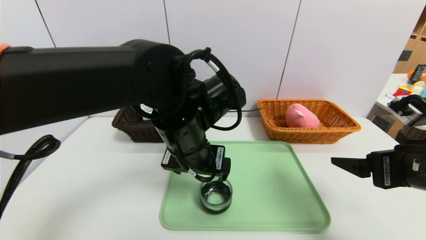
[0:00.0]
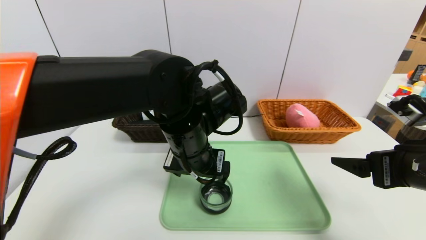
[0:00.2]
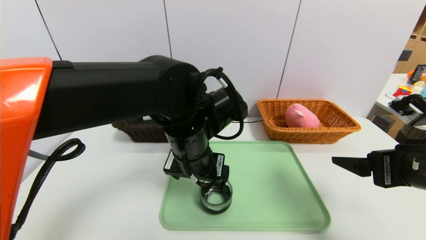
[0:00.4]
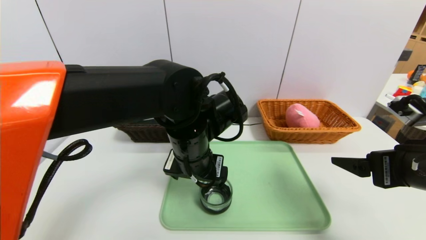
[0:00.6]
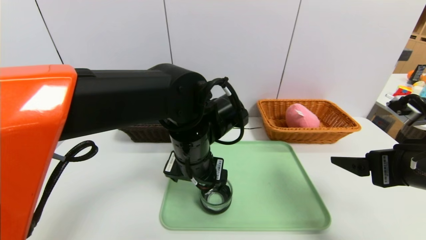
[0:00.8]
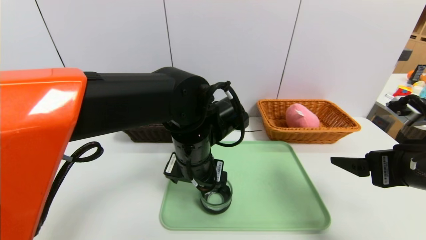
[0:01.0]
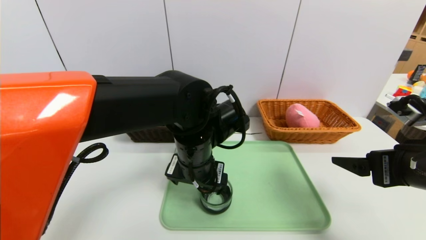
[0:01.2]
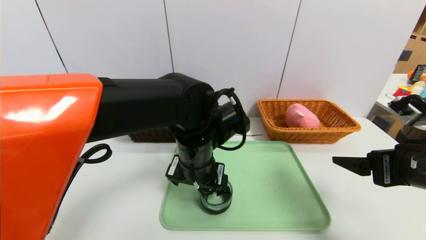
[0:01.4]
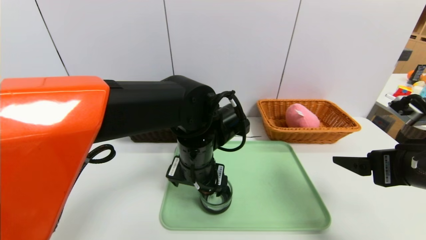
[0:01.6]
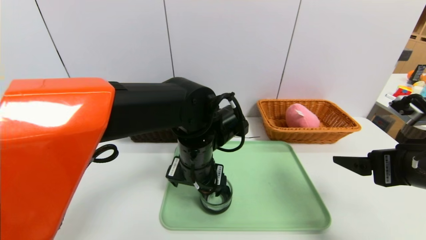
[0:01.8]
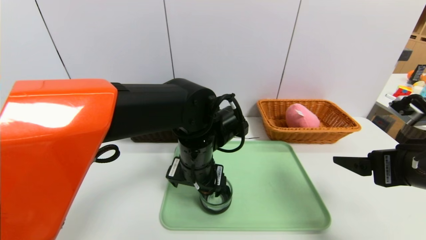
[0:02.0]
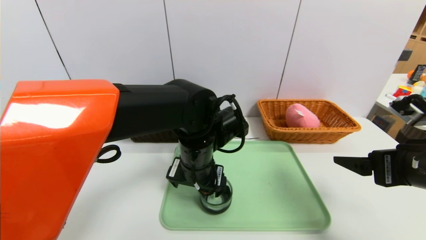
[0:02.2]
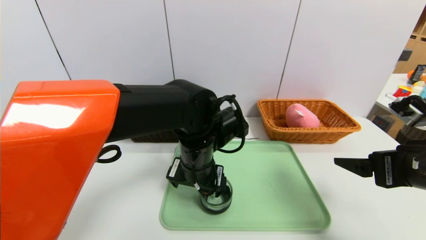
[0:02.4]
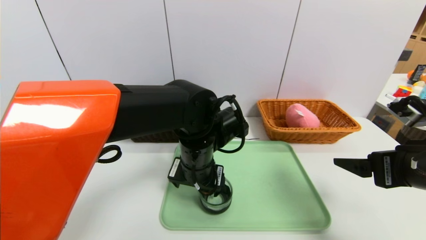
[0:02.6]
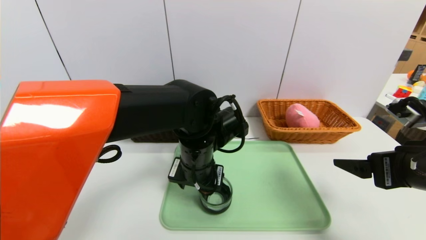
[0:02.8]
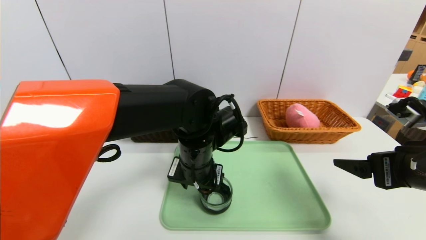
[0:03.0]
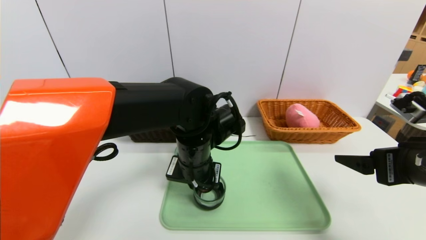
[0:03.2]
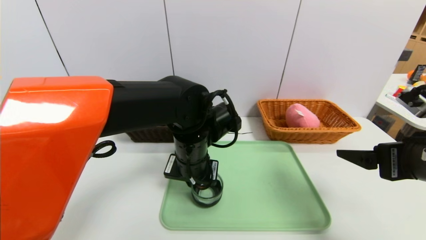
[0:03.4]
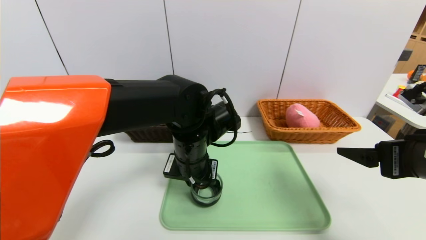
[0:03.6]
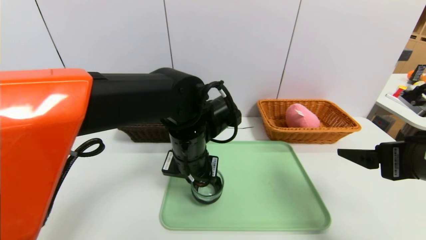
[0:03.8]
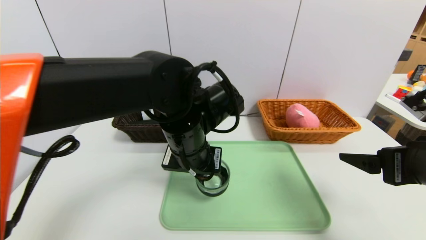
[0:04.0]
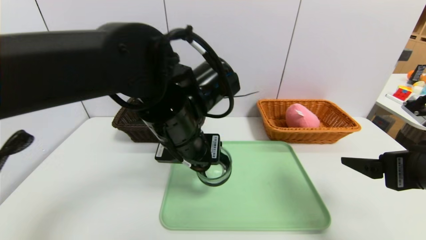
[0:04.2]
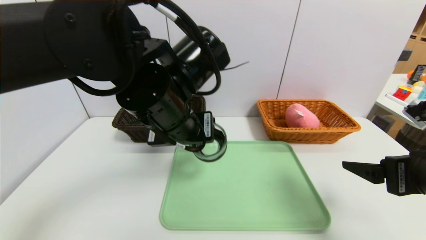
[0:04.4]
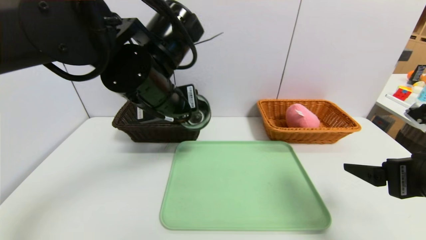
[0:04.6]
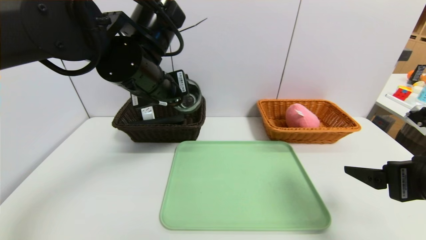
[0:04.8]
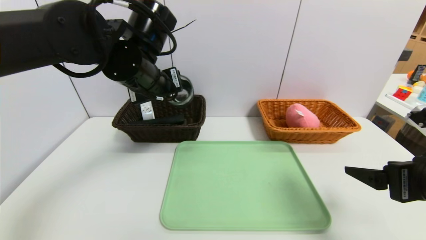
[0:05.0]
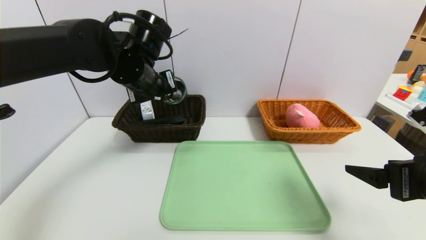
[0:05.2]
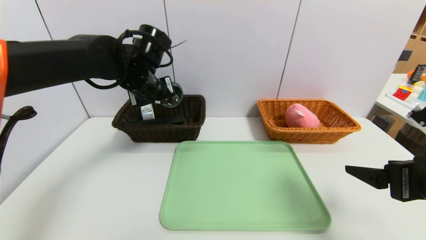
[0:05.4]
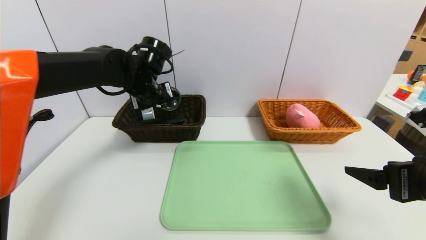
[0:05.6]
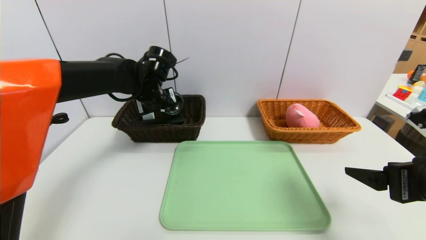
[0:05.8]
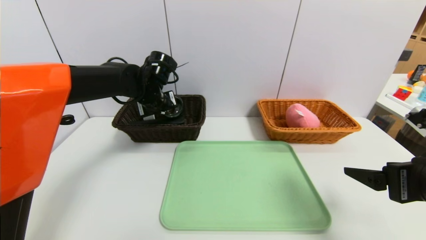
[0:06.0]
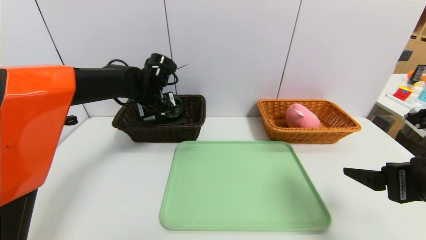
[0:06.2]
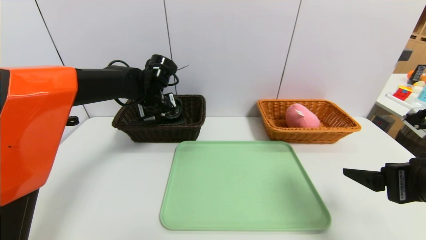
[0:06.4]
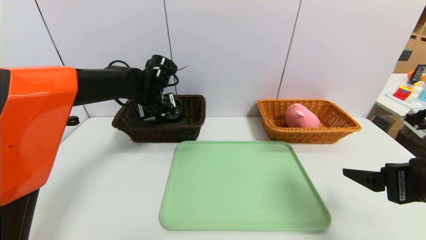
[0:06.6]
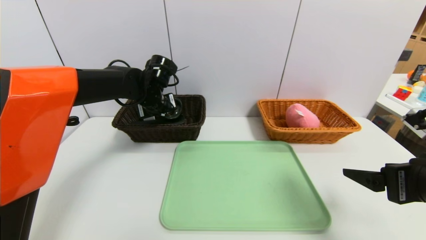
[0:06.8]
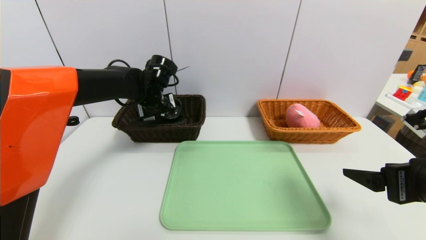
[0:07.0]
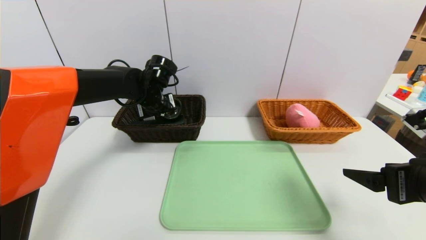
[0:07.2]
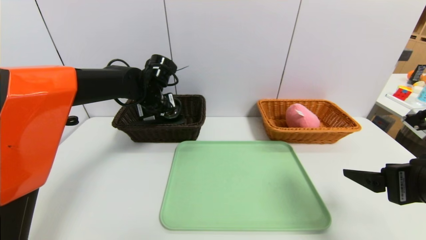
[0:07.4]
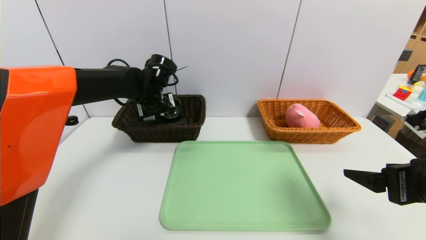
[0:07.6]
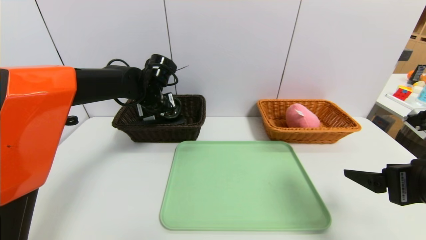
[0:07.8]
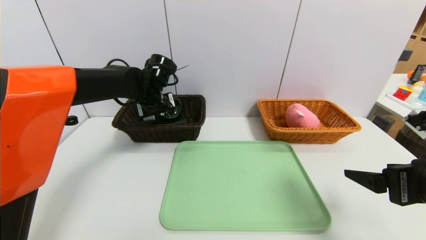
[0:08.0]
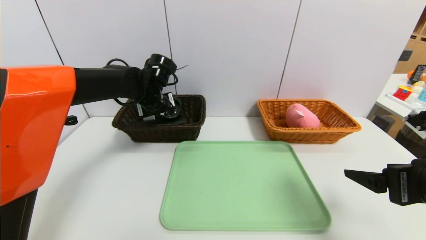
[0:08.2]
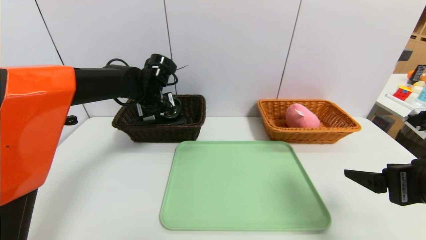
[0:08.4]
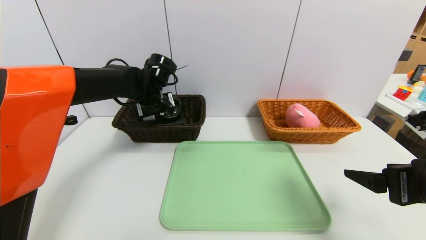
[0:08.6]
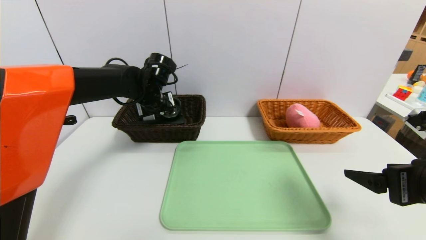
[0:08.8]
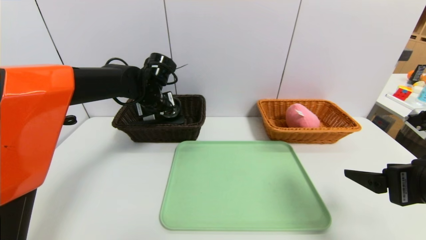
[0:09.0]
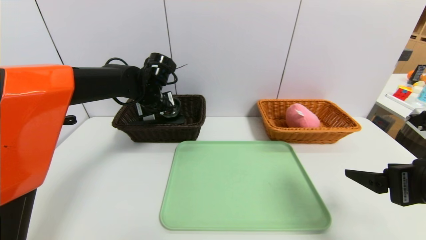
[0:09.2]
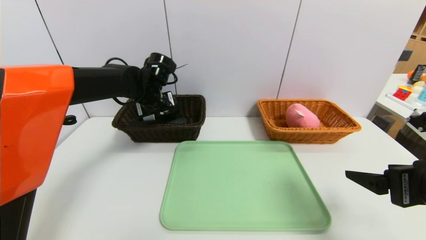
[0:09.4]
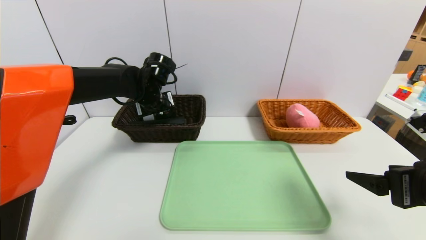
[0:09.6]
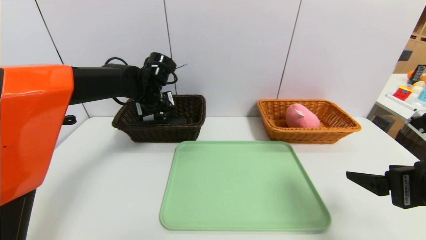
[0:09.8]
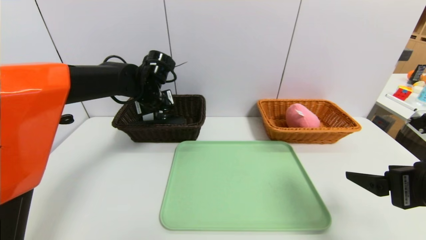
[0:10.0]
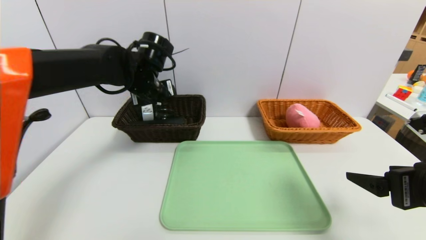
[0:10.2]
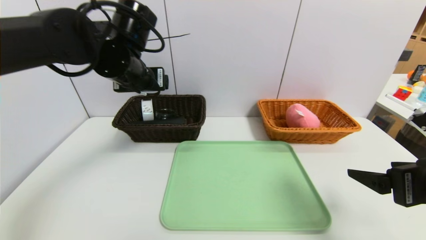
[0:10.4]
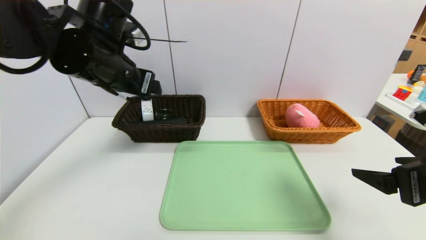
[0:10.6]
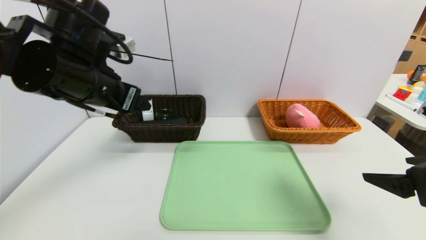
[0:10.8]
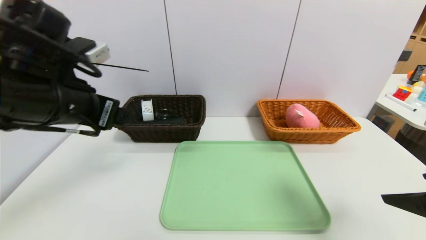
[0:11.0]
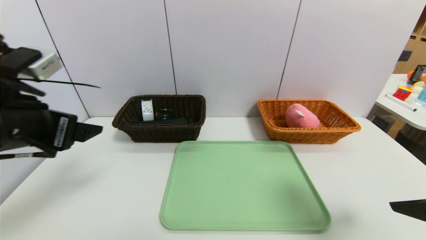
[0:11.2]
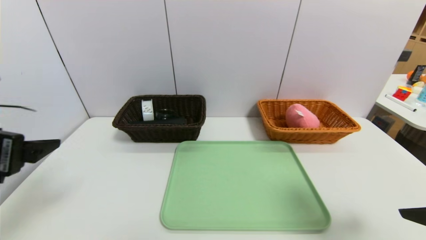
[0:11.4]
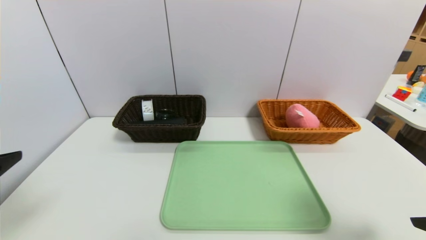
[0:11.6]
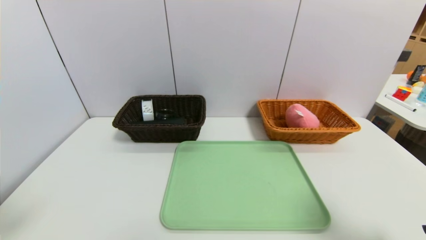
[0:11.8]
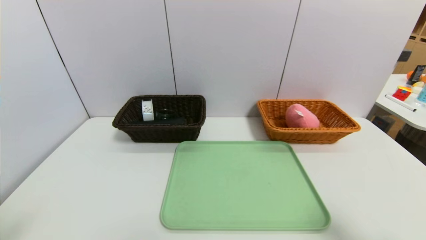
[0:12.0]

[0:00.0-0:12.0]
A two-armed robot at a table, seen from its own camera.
Task of the whole recording: place the food in the right basket with the right gripper, and place the non food items in the left basket with the left gripper.
Step, 0:00.0 to 0:10.8: Grasp the black glass cup and put it in the left basket.
0:00.0 to 0:01.6: The left gripper travels downward by some 5 cm.
0:01.6 to 0:03.0: The left gripper closes its fingers.
0:03.0 to 0:04.4: The left gripper moves upward, roughly 10 cm, and closes.
0:04.4 to 0:06.0: The left gripper travels forward and to the left by about 20 cm.
0:06.0 to 0:09.0: The two grippers keep their place.
0:09.0 to 0:10.4: The left gripper travels upward and backward by approximately 15 cm, and opens up.
0:10.4 to 0:12.0: The right gripper travels backward by approximately 10 cm. The left gripper shifts about 35 cm backward and to the left.

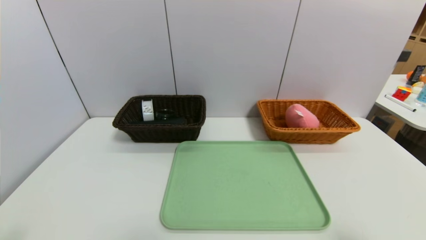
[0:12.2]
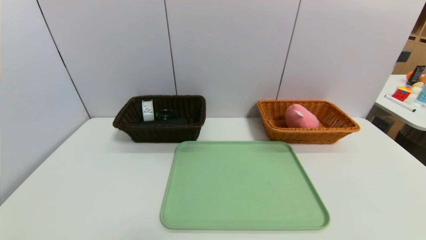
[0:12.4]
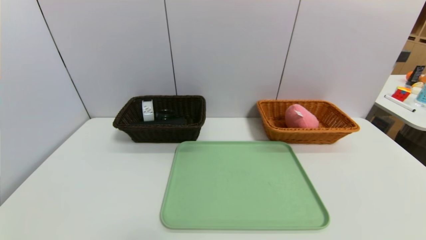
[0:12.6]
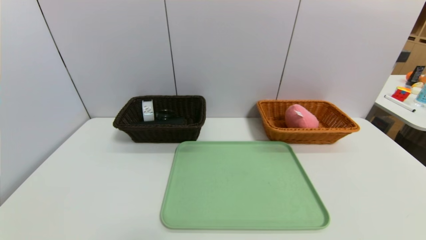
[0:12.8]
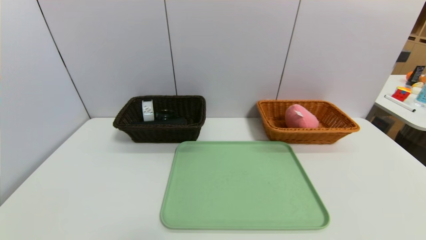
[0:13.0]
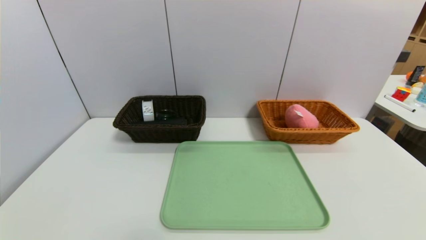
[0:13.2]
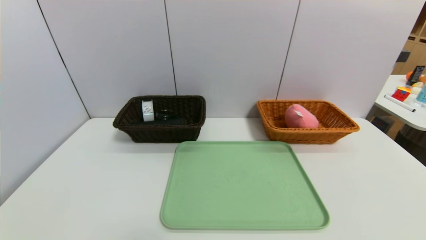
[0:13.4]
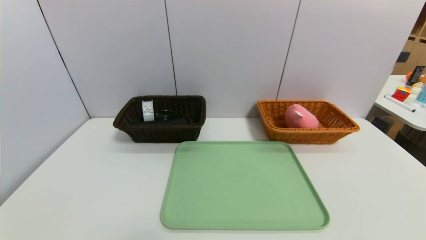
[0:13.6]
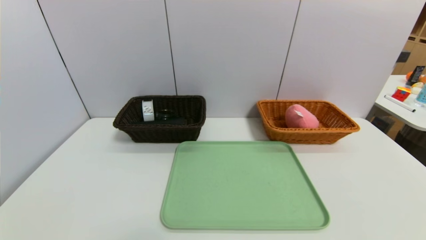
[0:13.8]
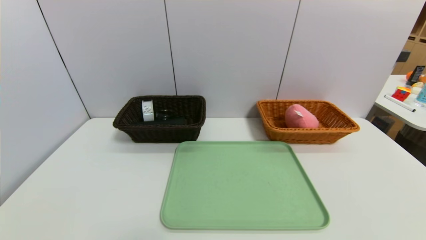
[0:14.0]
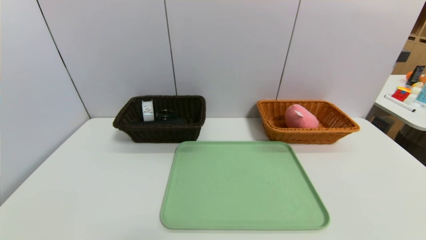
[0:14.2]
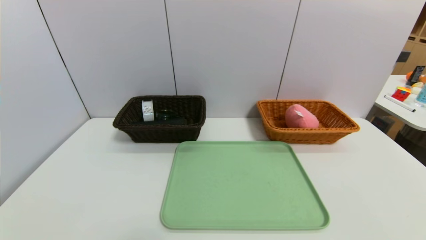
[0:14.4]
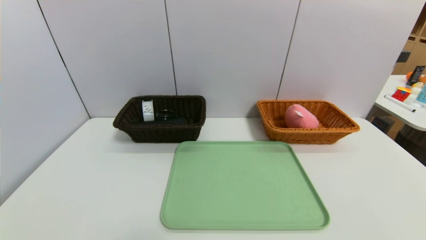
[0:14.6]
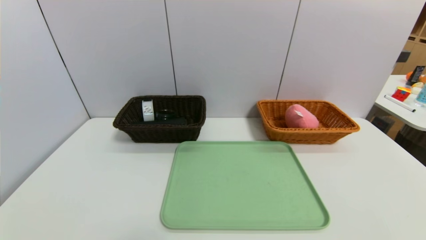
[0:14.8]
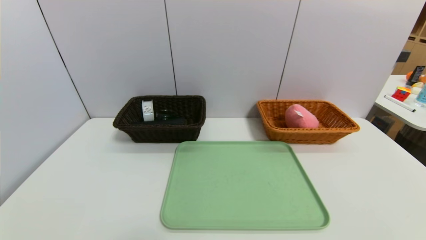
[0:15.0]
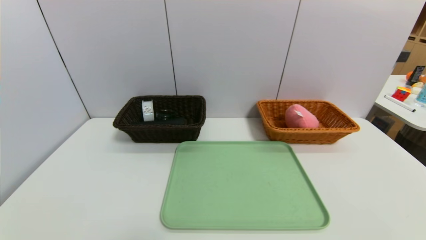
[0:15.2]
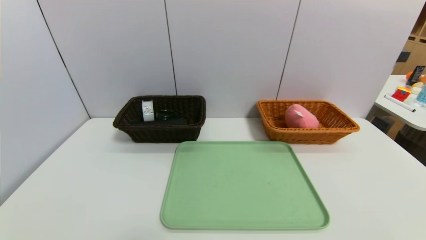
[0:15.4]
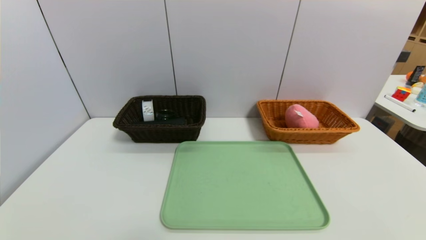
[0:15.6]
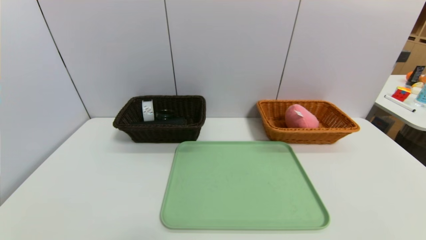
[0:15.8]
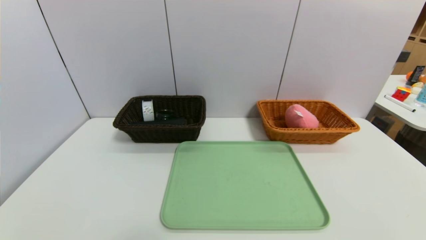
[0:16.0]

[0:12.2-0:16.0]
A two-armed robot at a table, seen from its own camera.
Task of the whole recording: place the food in the right basket with the right gripper, and place the non food items in the left basket with the left gripper.
0:14.8 to 0:16.0: Both grippers stay put.
